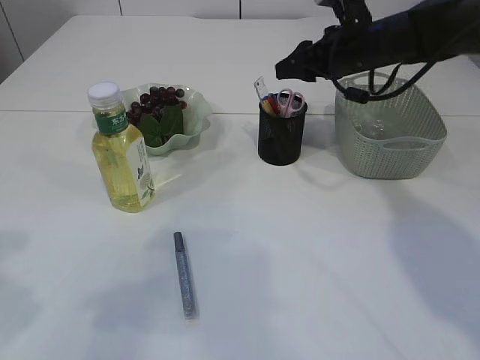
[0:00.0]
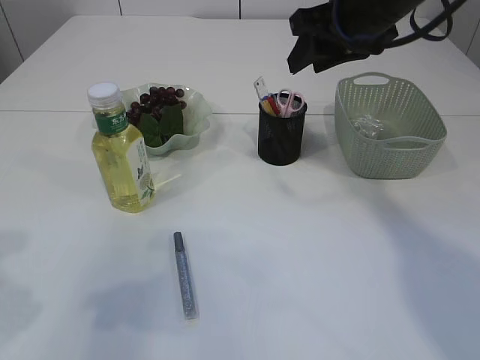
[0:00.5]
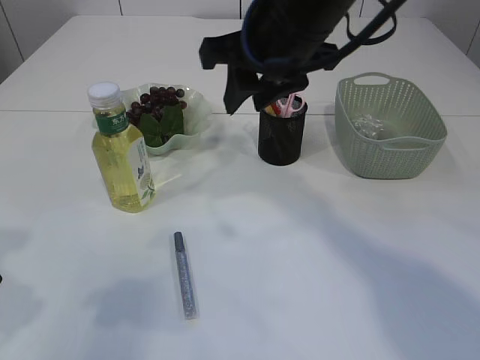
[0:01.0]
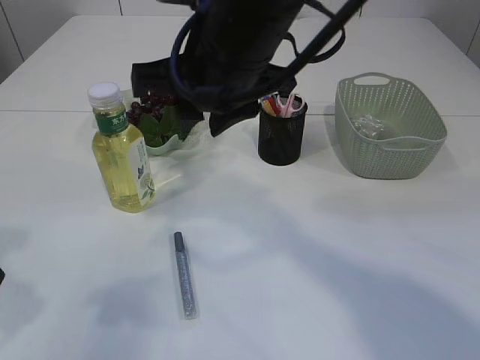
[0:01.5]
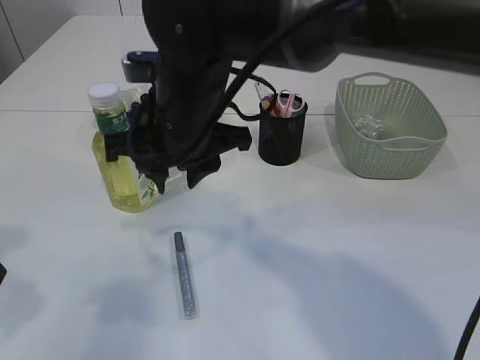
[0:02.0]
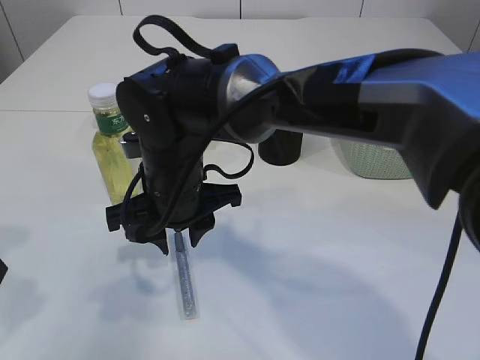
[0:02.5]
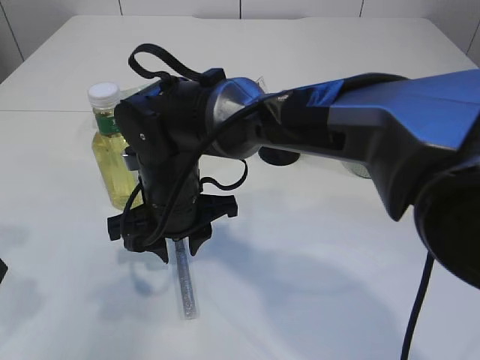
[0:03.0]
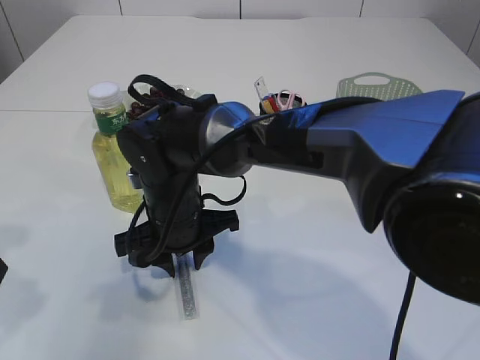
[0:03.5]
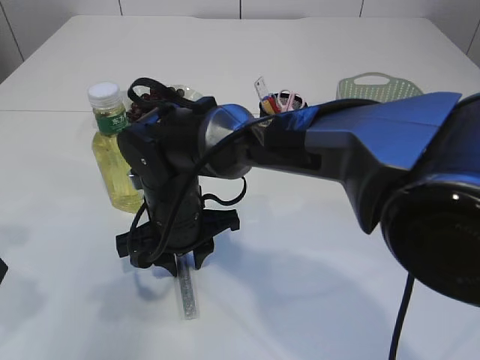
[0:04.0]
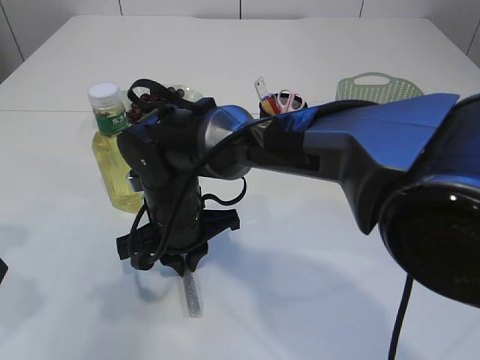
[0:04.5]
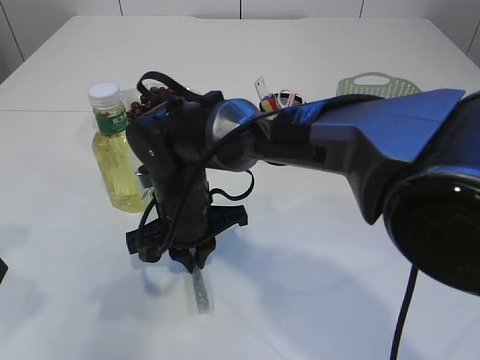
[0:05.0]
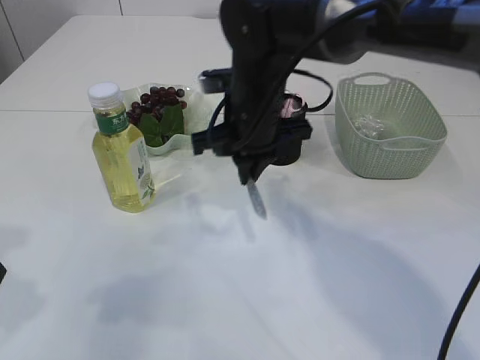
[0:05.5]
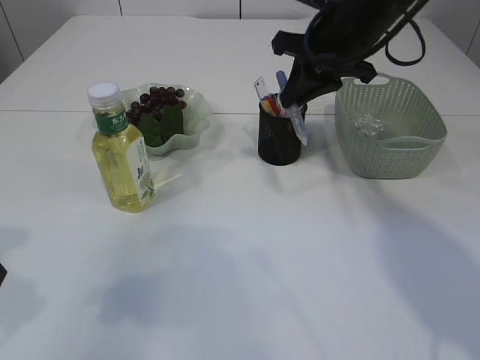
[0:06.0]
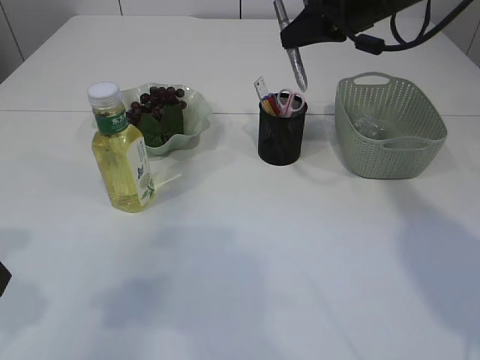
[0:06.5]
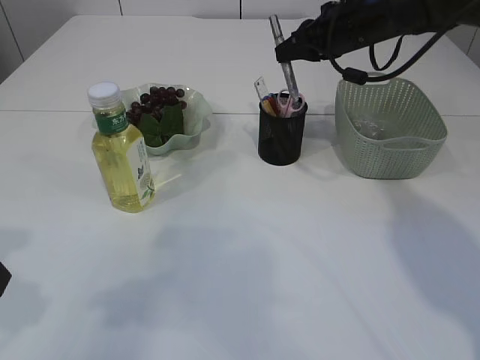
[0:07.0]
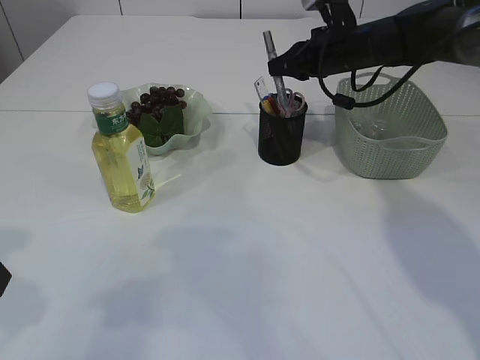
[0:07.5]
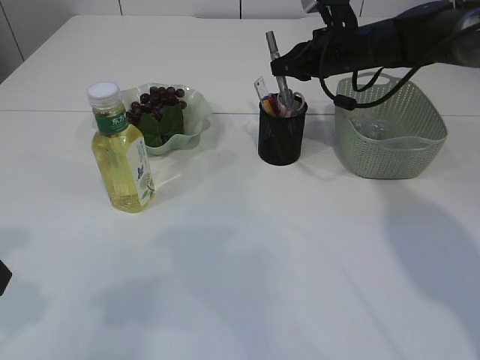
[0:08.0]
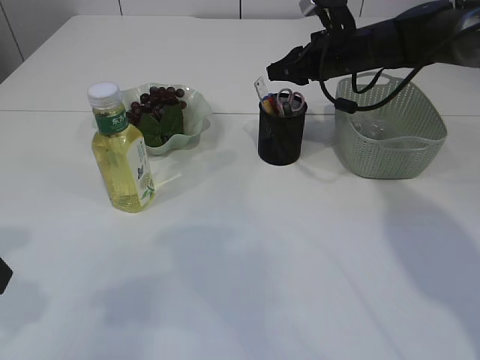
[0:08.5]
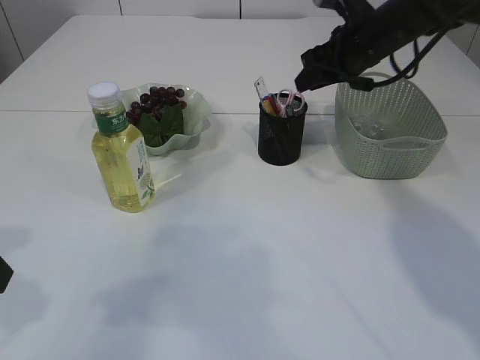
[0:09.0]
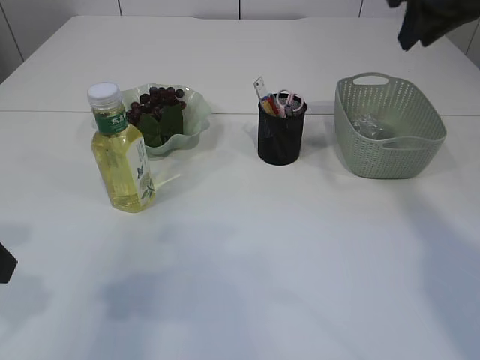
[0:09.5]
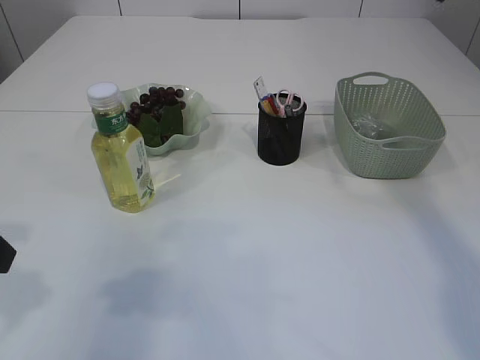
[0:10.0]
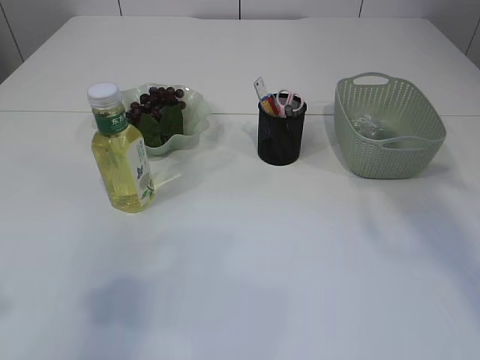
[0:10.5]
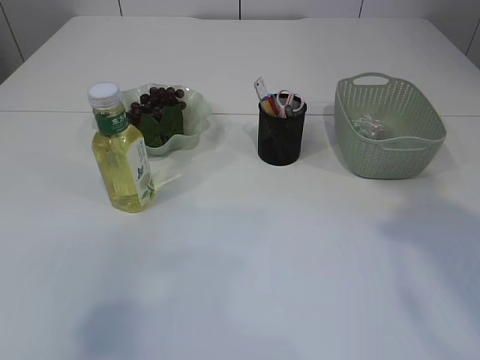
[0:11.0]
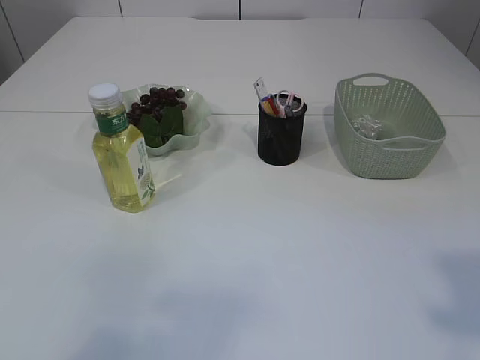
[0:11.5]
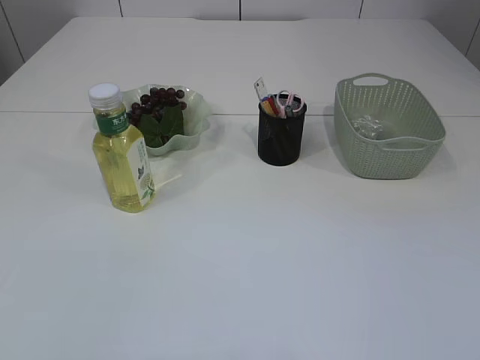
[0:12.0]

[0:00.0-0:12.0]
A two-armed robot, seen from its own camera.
Step, 0:00.5 to 0:05.0: pick up the silver glue.
Step, 0:05.5 to 0:09.0: place the silver glue into the pen holder.
0:00.0 to 0:02.0: The right gripper travels to the left and backward by roughly 25 cm.
0:02.0 to 0:04.0: The right gripper moves downward, some 15 cm.
0:04.0 to 0:06.0: The right gripper travels to the right, upward and forward by some 30 cm, and closes.
0:06.0 to 0:08.0: The right gripper shifts approximately 10 cm forward and downward.
0:08.0 to 0:10.0: The right gripper goes approximately 25 cm upward and backward, and opens.
0:10.0 to 0:12.0: The left gripper moves backward, roughly 20 cm.
